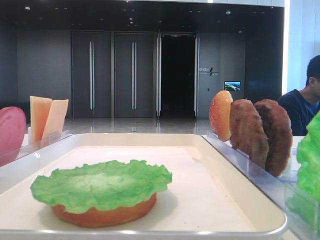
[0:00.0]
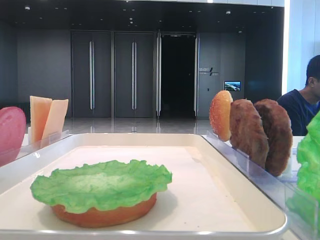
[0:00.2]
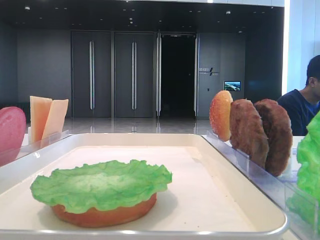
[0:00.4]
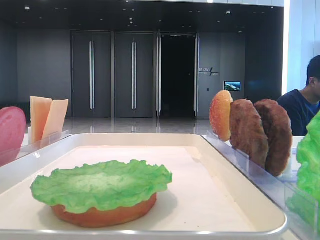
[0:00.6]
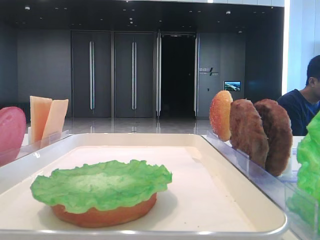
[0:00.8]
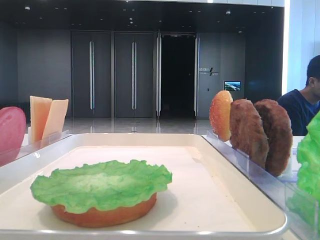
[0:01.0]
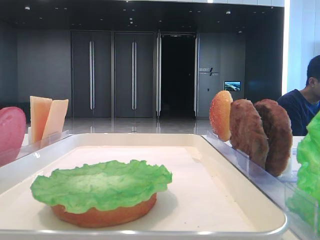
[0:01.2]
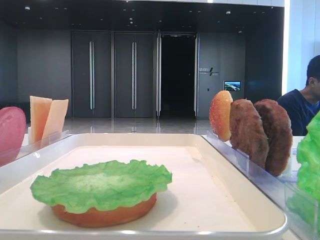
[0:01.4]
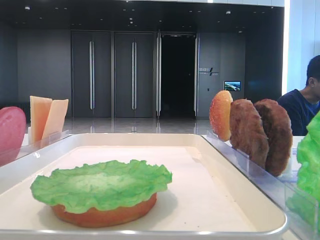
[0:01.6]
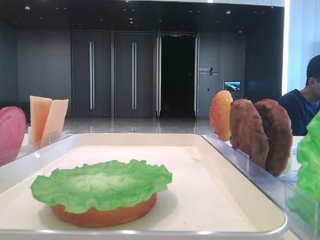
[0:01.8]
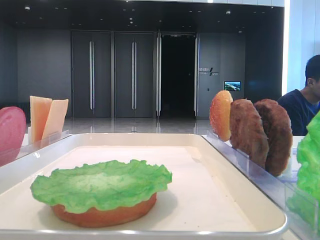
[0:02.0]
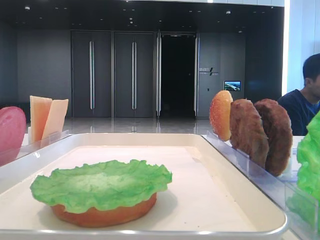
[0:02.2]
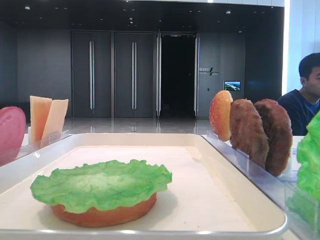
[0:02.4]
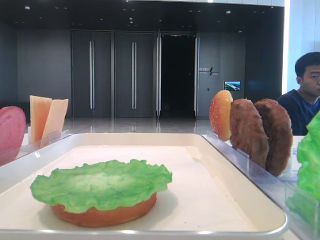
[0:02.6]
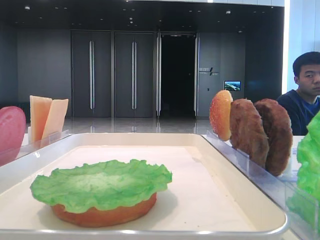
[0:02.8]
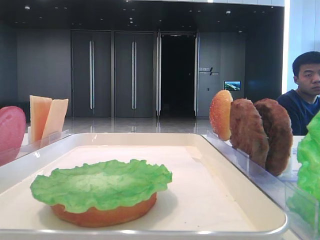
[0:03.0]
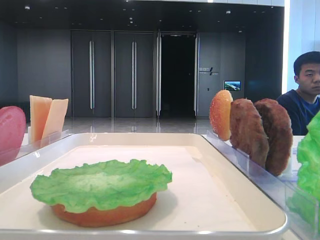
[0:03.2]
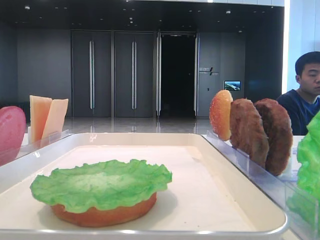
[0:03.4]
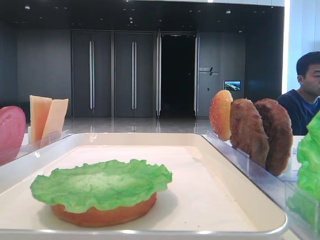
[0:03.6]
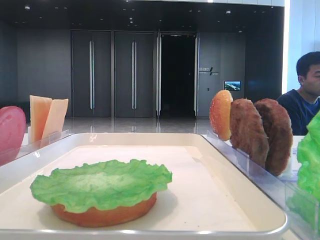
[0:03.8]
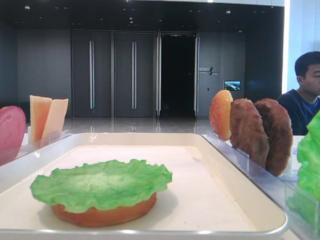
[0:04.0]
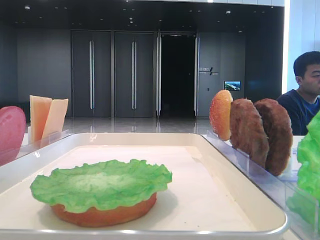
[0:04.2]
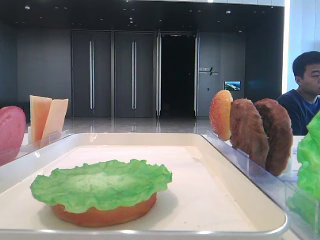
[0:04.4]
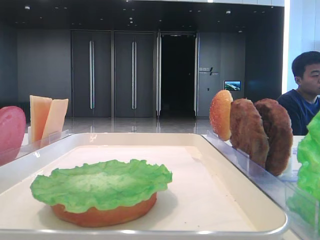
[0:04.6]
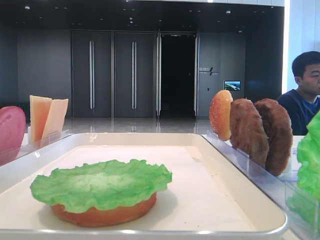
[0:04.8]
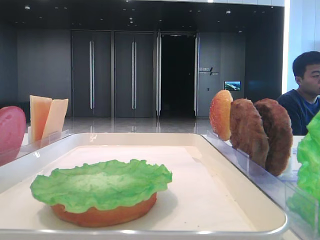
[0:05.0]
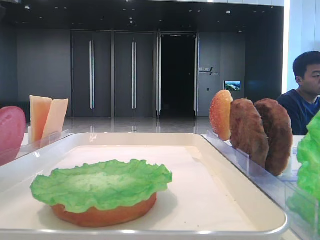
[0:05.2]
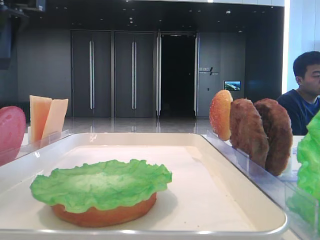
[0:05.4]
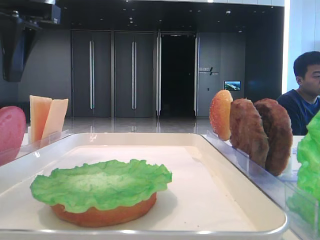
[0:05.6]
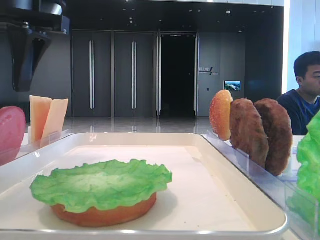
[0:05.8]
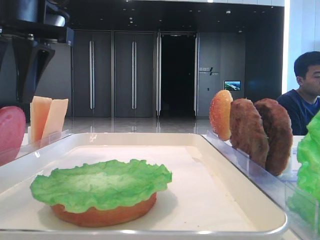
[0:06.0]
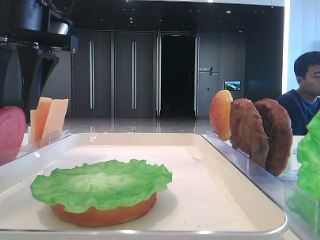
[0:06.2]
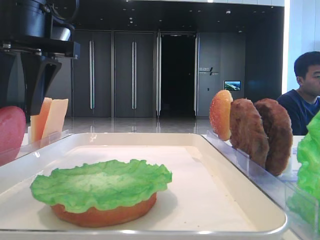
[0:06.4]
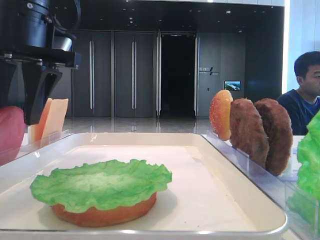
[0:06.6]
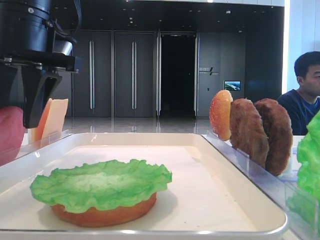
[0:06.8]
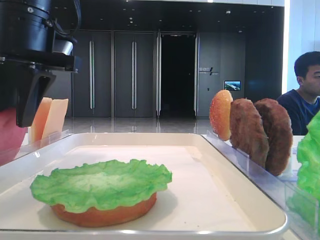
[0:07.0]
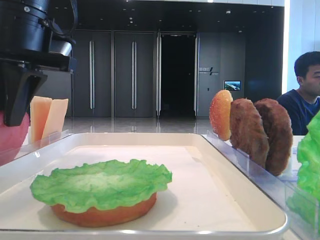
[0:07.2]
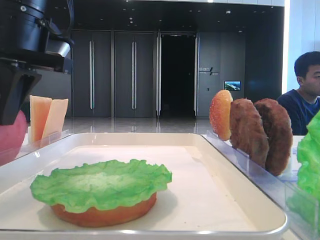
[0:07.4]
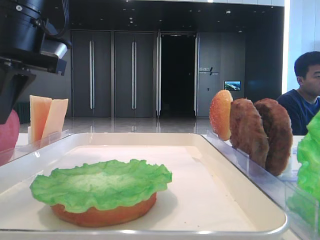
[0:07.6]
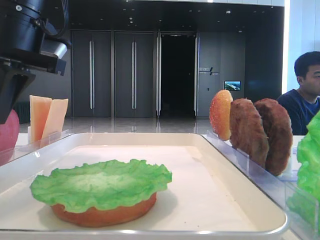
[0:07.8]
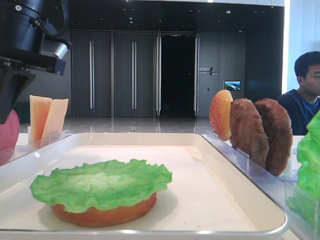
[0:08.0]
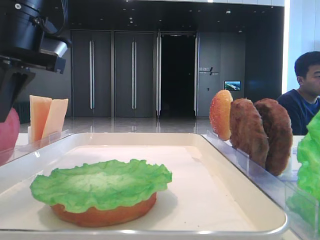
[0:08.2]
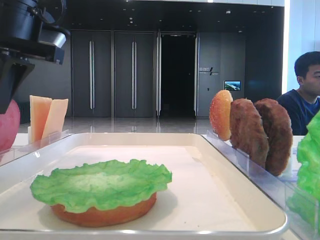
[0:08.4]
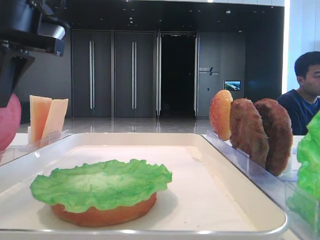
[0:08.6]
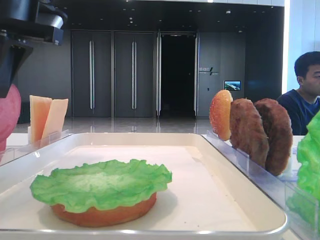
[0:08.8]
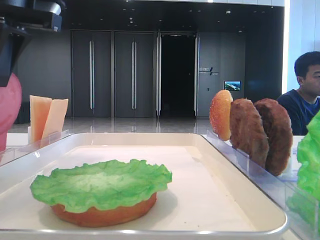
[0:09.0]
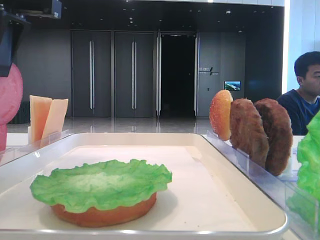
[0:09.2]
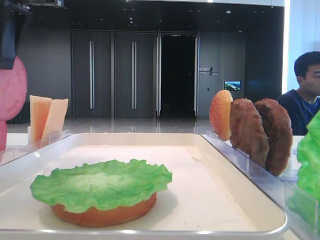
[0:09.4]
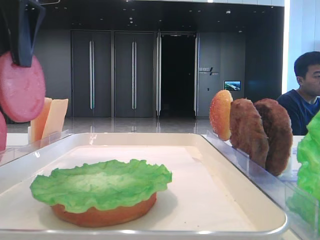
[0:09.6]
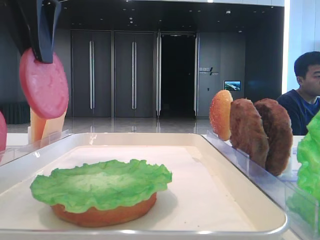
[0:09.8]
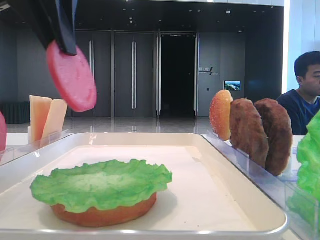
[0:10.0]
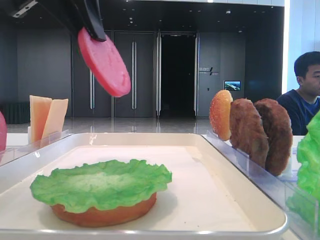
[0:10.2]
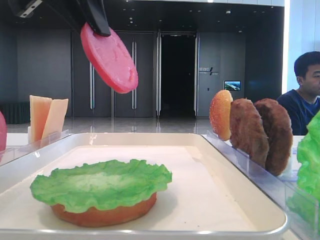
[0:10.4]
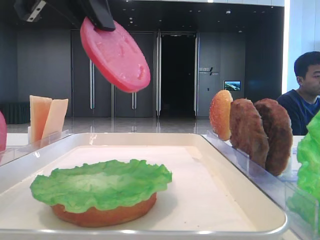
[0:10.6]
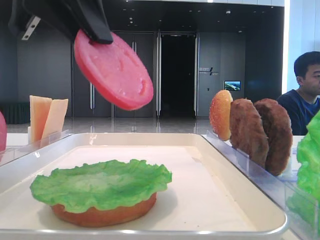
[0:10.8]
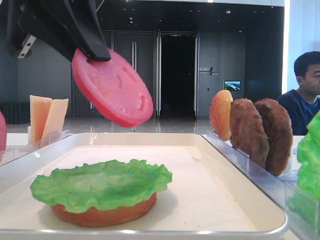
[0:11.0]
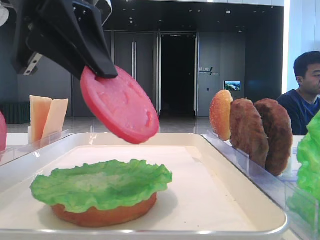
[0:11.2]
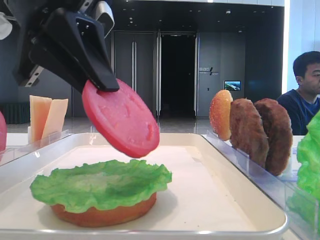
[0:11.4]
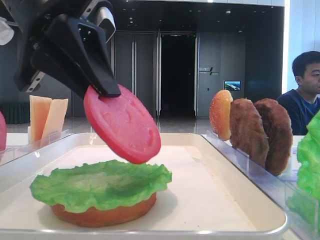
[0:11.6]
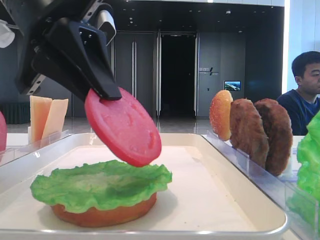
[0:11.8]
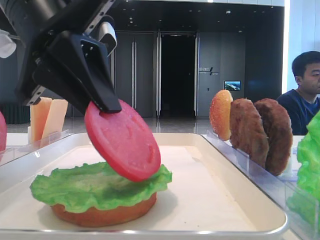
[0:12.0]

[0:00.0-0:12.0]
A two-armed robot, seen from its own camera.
Step, 0:00.0 to 0:07.2: Pick up the tomato slice with the left hand.
0:04.4 to 0:06.0: The left gripper travels to the right by about 20 cm.
0:06.0 to 0:07.6: The left gripper closes up.
0:07.6 to 0:09.0: There are only small adjustments of the grippers.
0:09.0 to 0:10.4: The left gripper goes about 5 cm to the right.
0:10.4 to 0:12.0: The left gripper travels downward by some 10 cm.

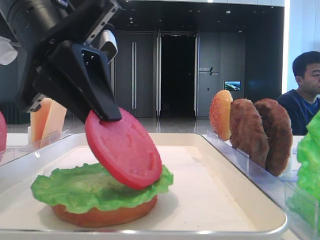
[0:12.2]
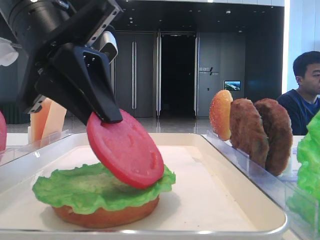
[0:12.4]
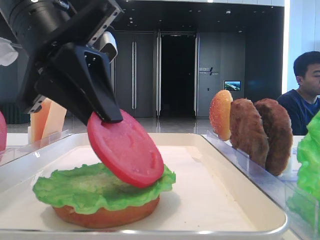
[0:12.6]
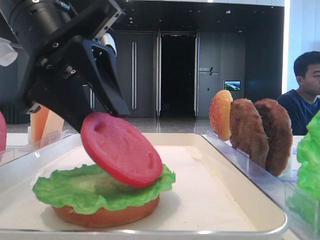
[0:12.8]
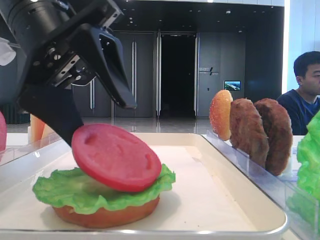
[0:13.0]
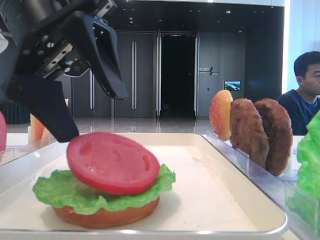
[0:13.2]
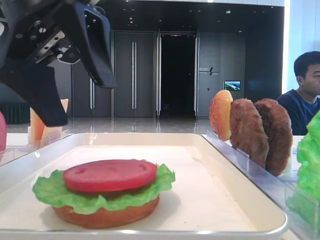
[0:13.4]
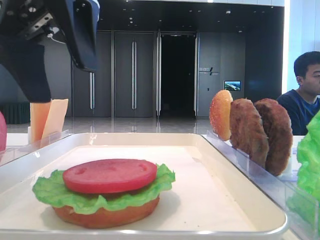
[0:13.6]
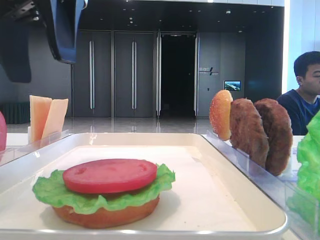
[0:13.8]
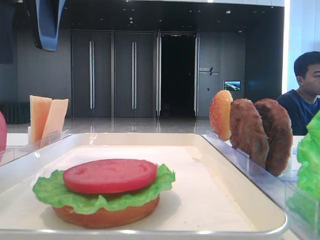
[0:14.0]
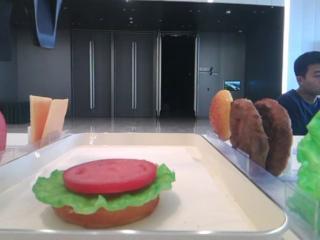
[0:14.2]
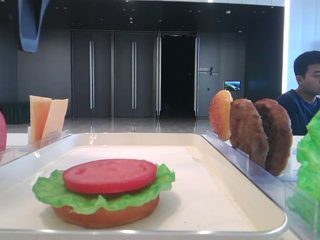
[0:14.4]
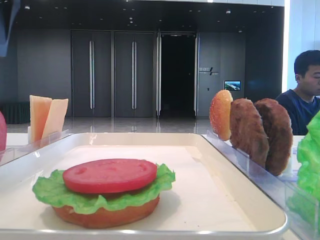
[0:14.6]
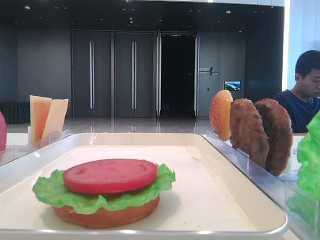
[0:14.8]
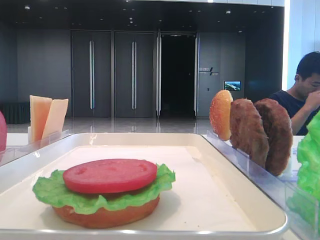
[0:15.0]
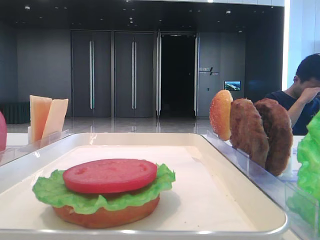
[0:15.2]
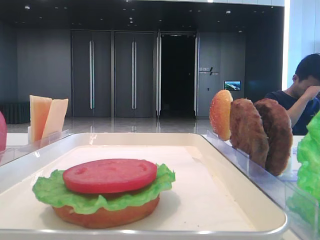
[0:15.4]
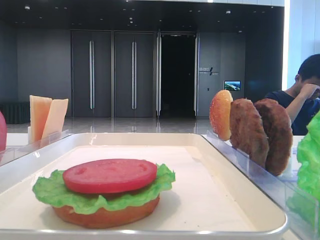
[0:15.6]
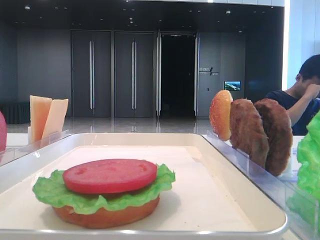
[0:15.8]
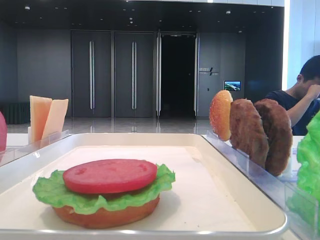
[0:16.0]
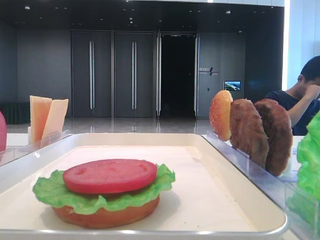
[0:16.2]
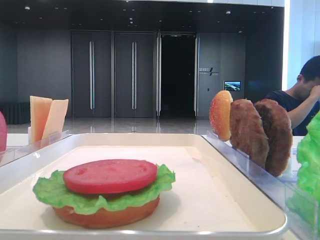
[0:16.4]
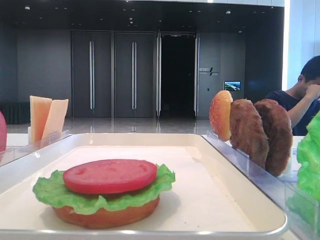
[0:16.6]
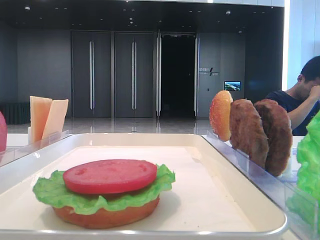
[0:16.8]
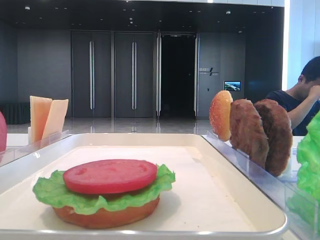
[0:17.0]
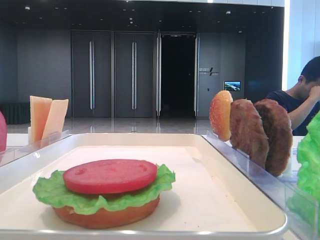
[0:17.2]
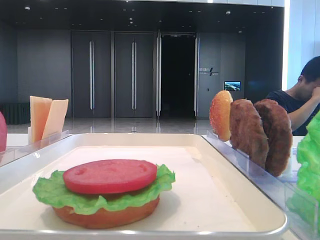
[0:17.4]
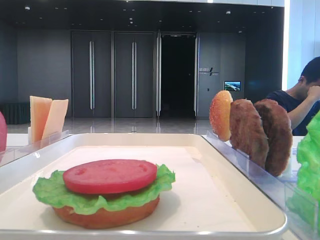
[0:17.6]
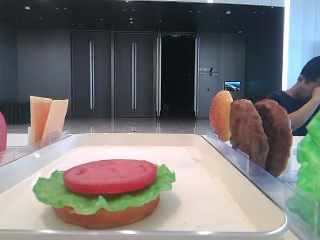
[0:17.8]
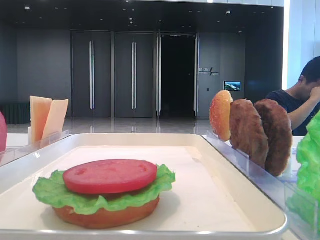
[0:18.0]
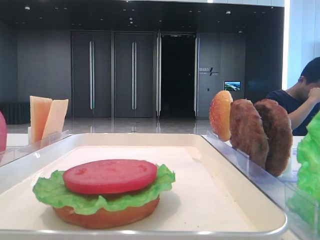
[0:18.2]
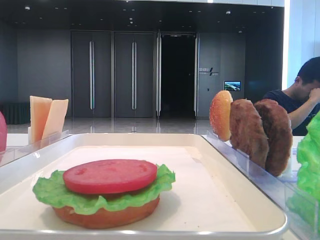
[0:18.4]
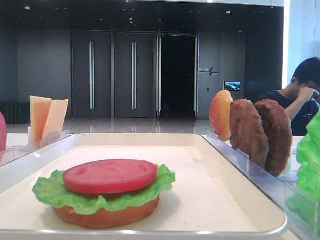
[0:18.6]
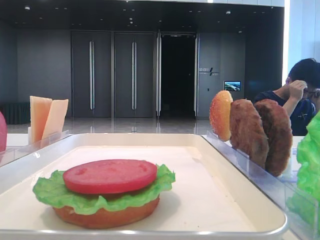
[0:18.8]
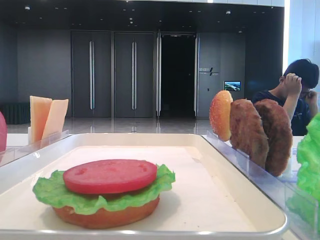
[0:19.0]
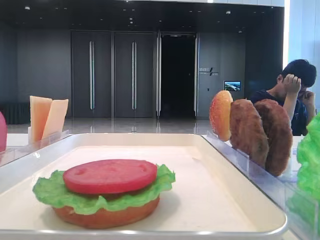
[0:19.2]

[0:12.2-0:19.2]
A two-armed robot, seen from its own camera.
0:12.2 to 0:13.6: The left gripper goes approximately 5 cm upward, and opens its fingers.
0:13.6 to 0:15.0: The left gripper is displaced to the left by roughly 15 cm.
0:17.8 to 0:19.2: Both grippers stay about where they are.

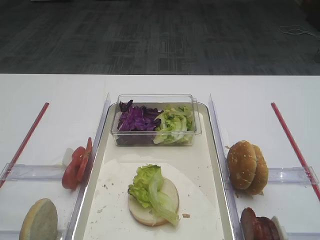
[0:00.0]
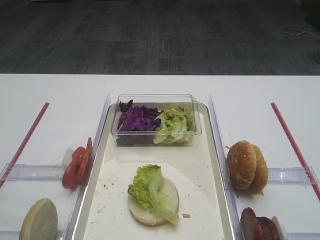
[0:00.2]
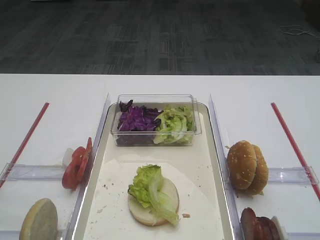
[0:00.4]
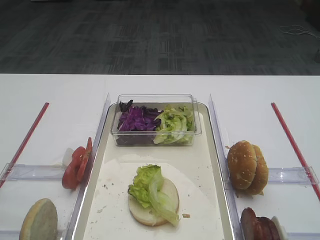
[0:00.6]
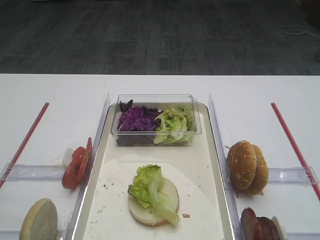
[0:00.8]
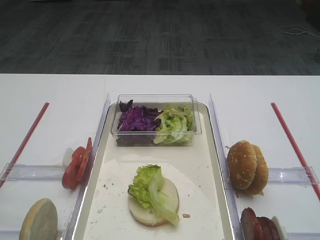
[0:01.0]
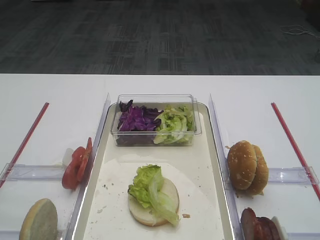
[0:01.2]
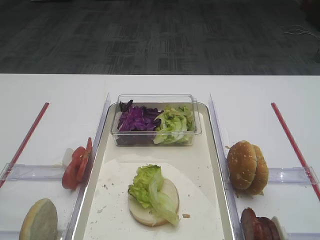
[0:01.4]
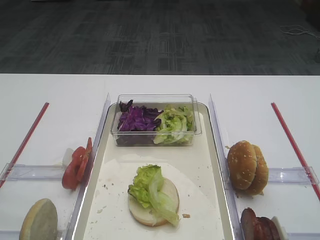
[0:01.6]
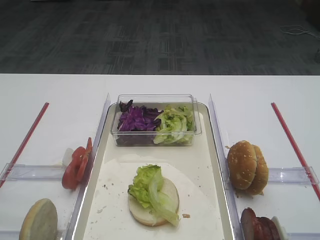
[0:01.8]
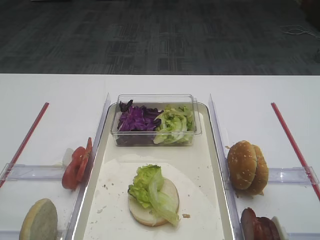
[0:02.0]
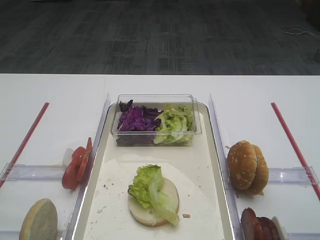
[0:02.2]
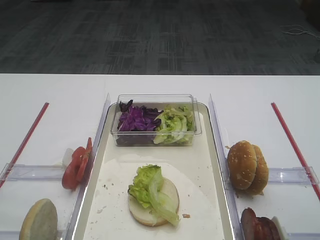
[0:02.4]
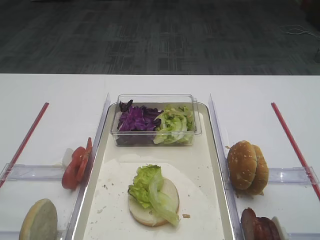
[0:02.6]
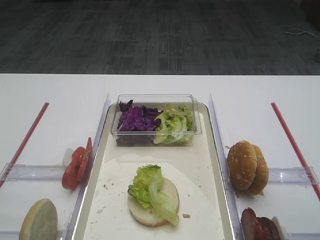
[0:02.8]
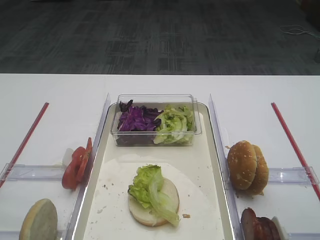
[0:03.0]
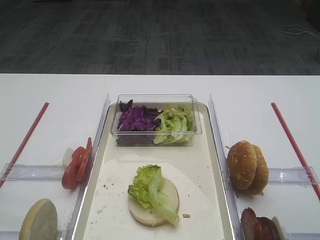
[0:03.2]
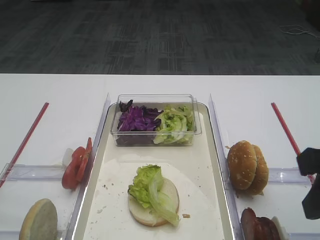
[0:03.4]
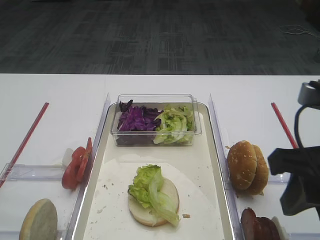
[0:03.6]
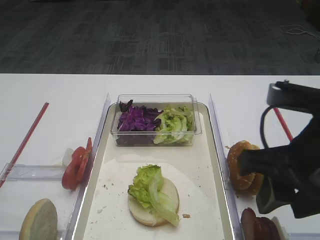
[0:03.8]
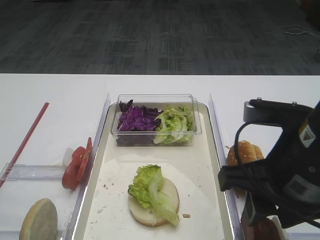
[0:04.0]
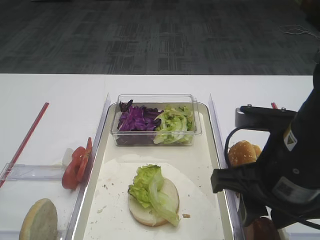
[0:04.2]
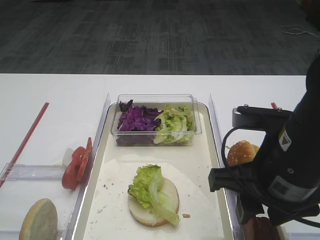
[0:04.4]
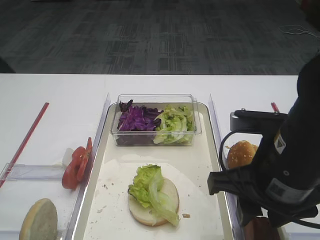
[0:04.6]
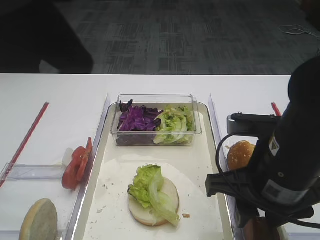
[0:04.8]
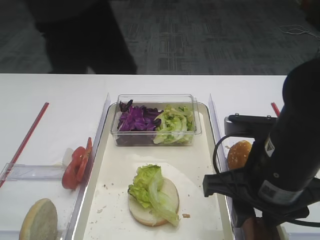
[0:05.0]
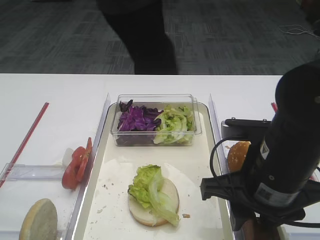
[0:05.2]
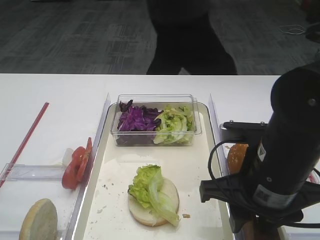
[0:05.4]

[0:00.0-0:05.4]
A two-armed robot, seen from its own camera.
0:02.8 to 0:04.0: The right gripper travels to the left by roughly 10 cm.
0:04.0 to 0:05.4: The right gripper shifts by about 5 cm.
